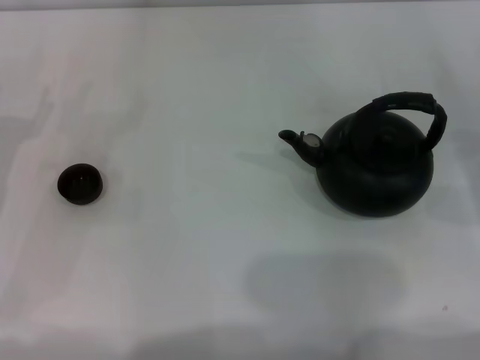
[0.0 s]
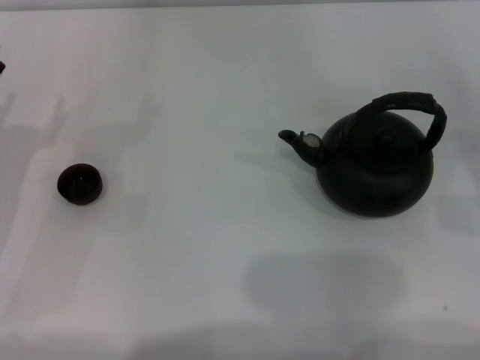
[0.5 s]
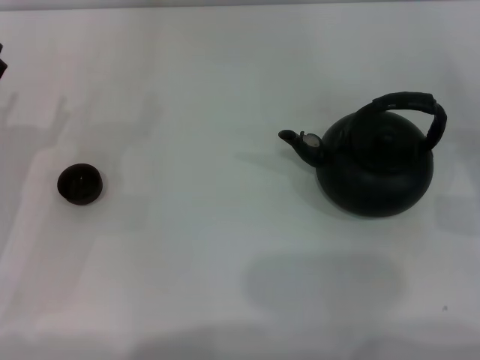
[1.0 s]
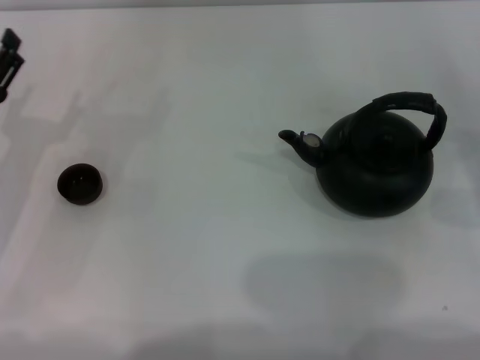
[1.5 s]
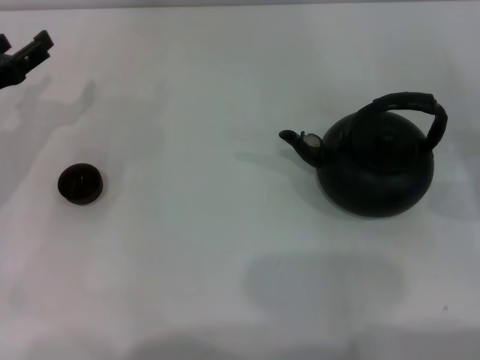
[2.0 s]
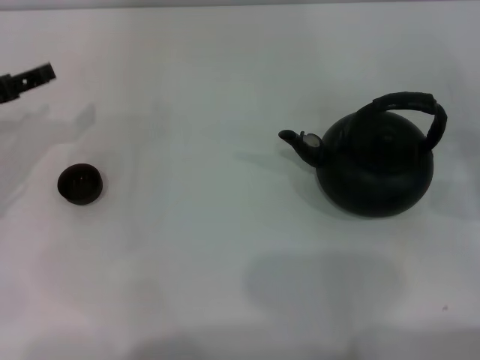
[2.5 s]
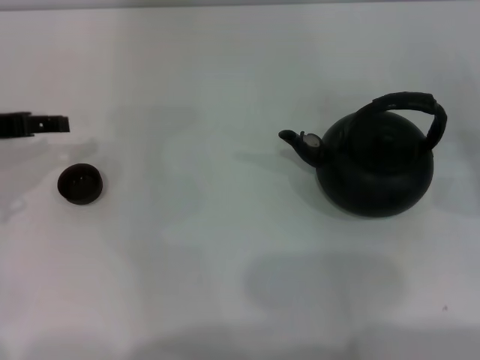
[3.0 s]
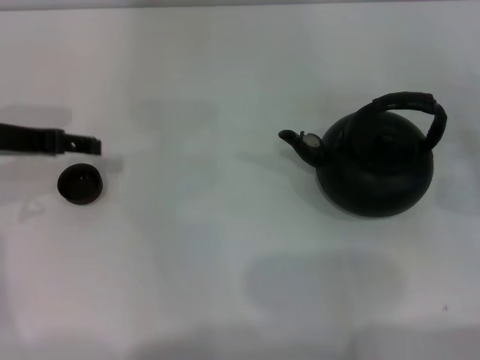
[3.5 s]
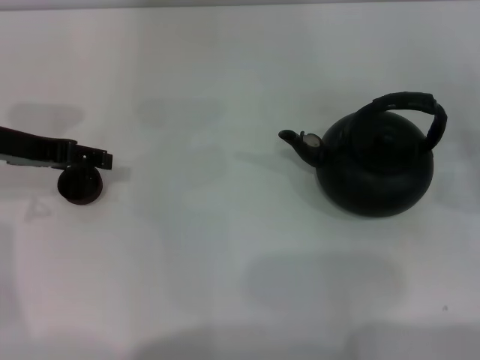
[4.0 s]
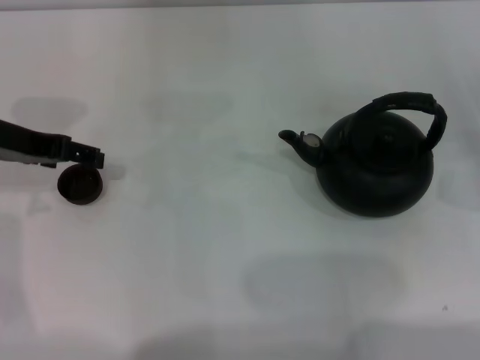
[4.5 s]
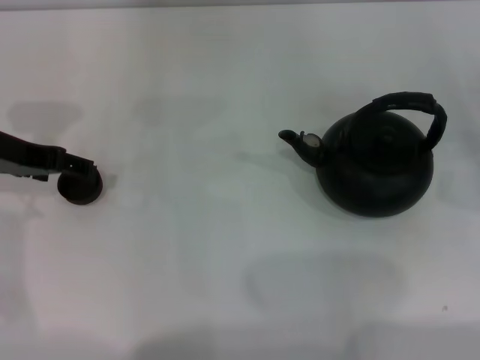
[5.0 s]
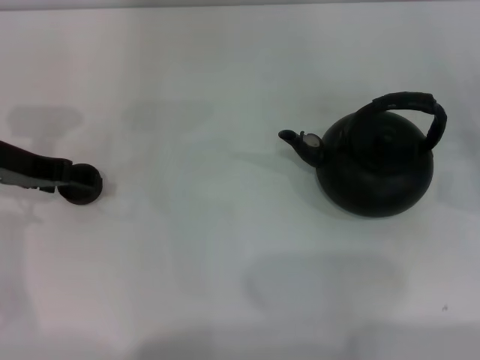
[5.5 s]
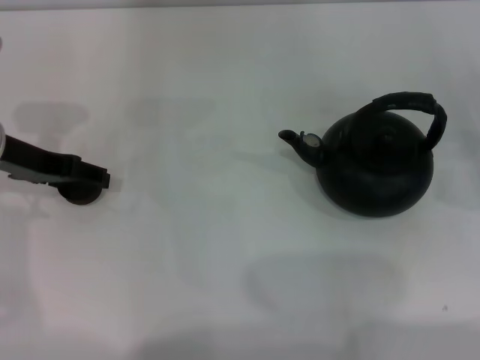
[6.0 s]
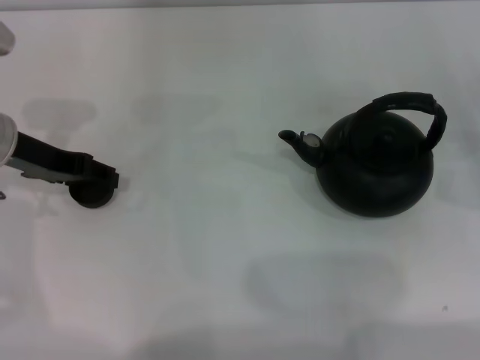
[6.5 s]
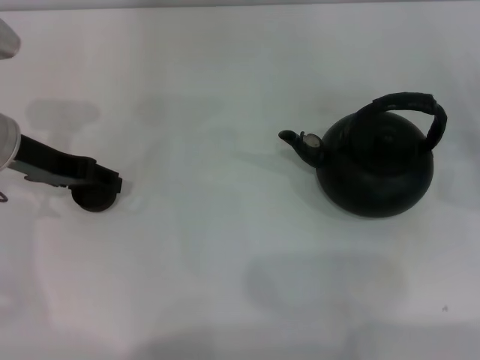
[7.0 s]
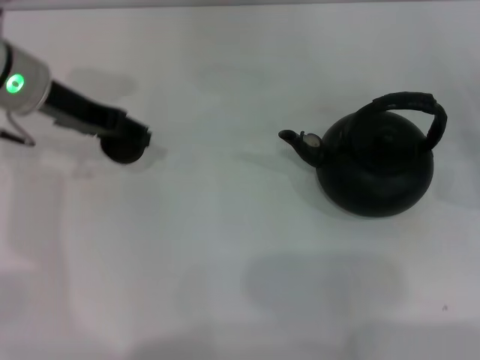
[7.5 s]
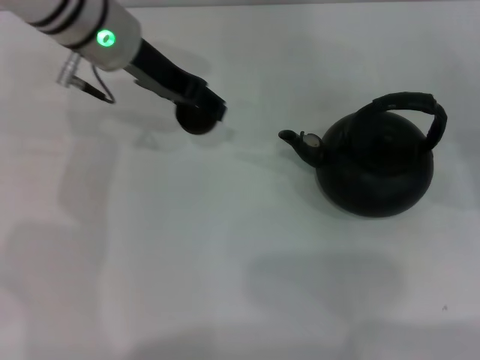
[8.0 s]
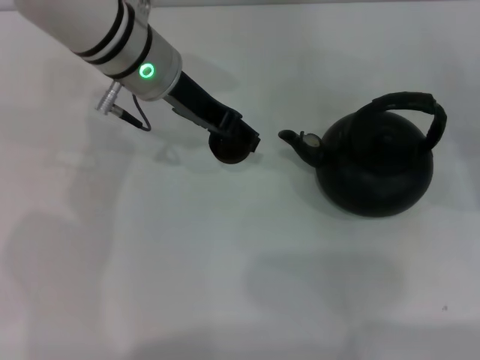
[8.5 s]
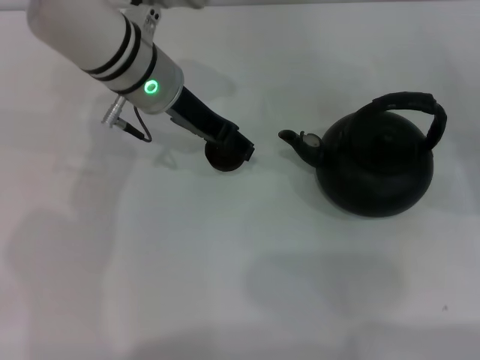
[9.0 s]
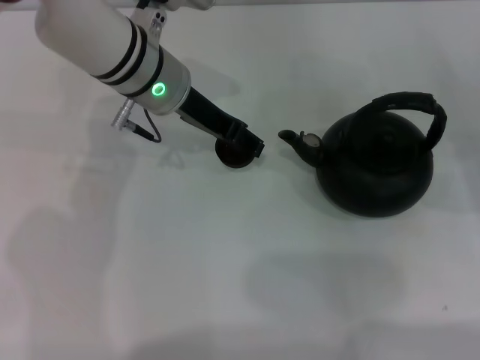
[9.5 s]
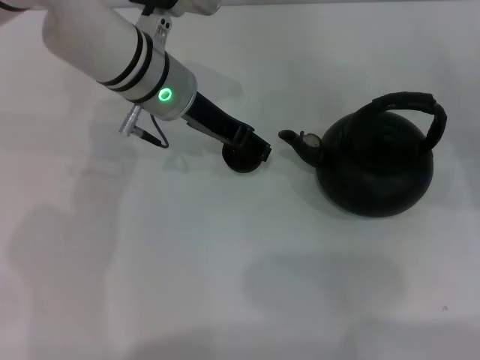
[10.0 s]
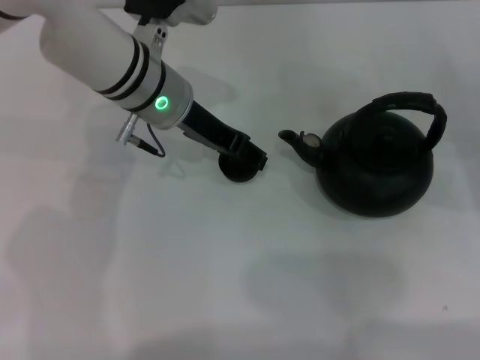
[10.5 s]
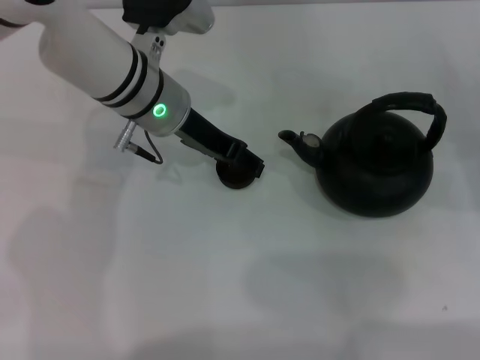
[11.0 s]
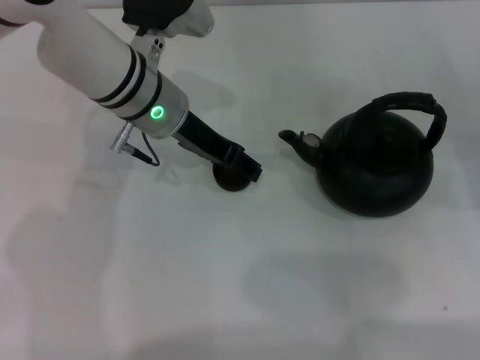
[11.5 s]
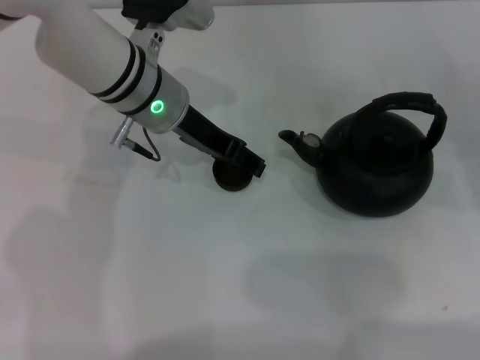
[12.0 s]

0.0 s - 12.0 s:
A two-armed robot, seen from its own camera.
Task of the whole recording: Grasp the handle of the teapot with one hand and pour tea into the teacup.
Step, 0.0 s - 7.5 s: Pick up the teacup with the left gripper.
0.0 s - 2.0 s: The left gripper shifts by about 5 cm.
2.0 s - 4.0 s: The left gripper moves upward, about 5 cm.
4.0 s - 6.0 s: There are only small adjustments of the grippers.
6.0 s - 8.0 s: The left gripper shifts some 15 cm to the right, forward and upward, and closes.
8.0 s - 10.0 s: The left gripper travels downward by some 5 cm.
10.0 s - 12.0 s: The left gripper opens.

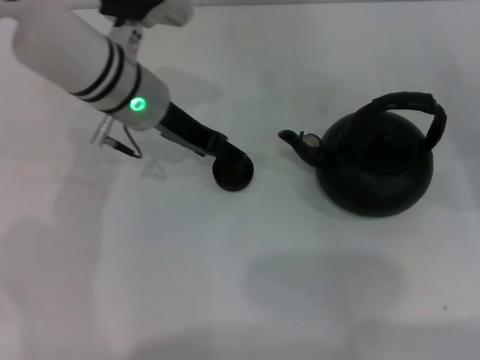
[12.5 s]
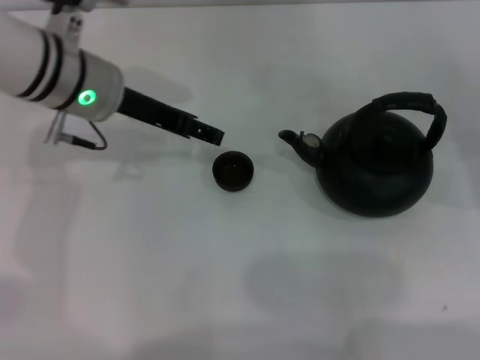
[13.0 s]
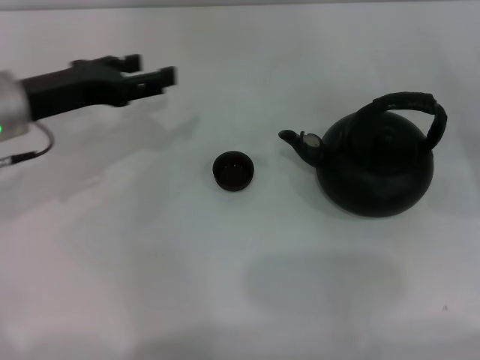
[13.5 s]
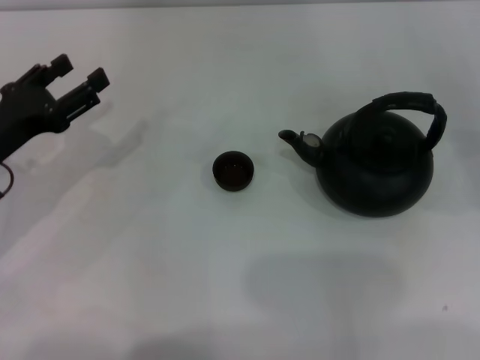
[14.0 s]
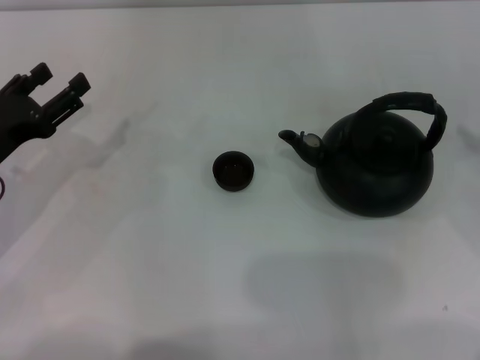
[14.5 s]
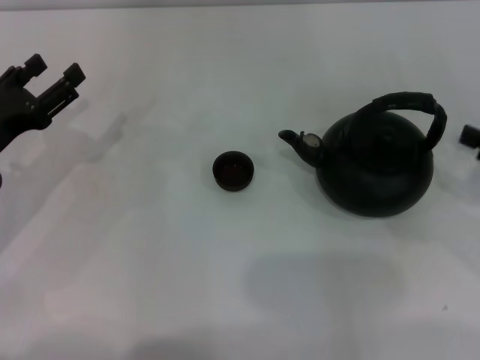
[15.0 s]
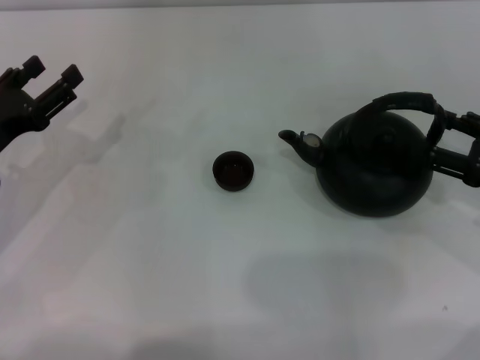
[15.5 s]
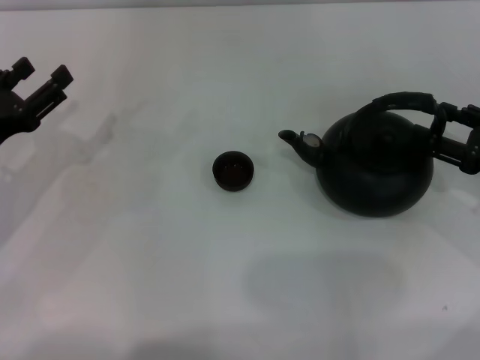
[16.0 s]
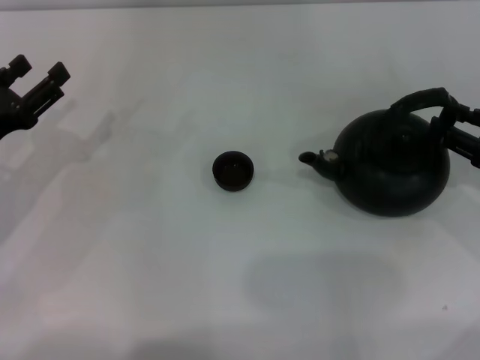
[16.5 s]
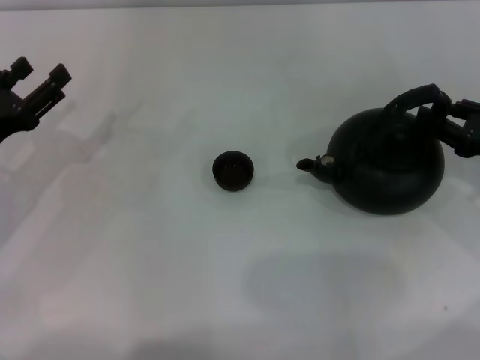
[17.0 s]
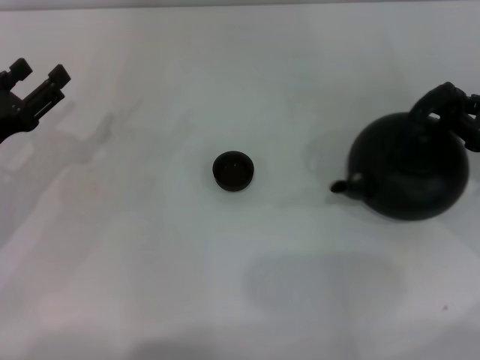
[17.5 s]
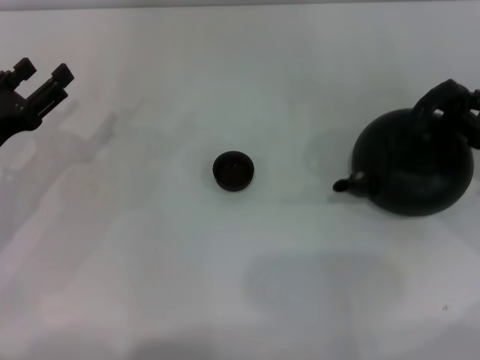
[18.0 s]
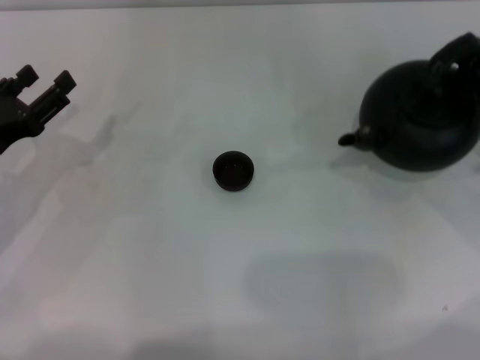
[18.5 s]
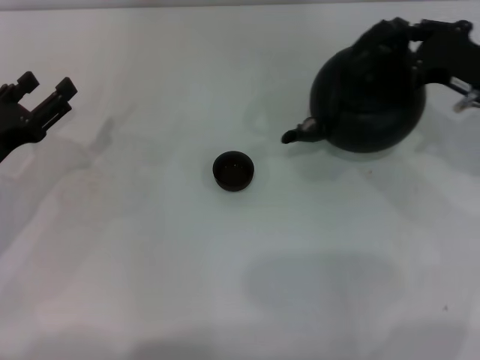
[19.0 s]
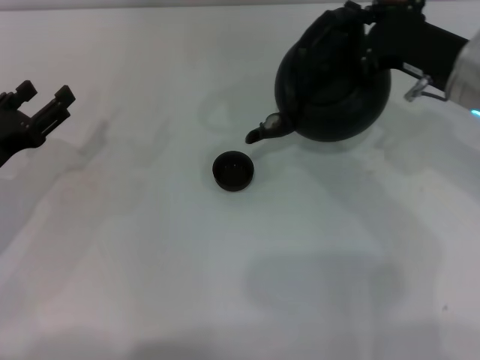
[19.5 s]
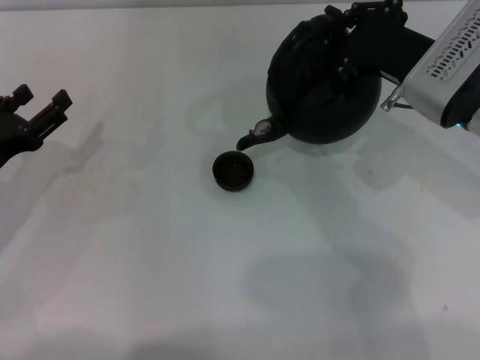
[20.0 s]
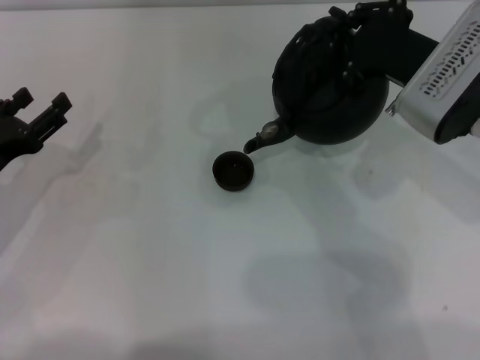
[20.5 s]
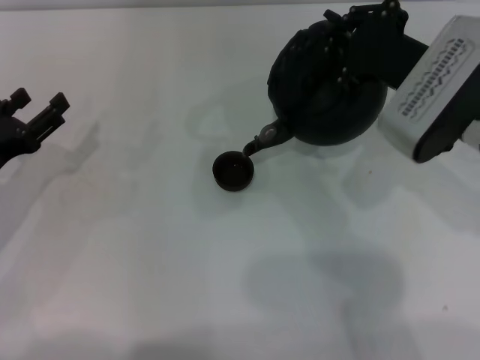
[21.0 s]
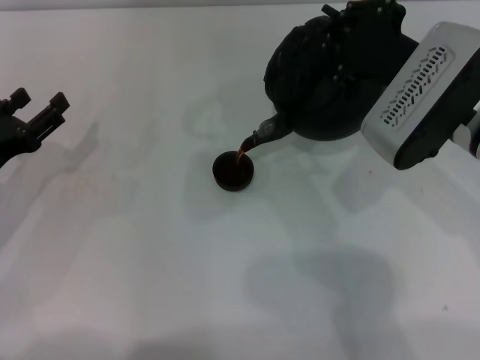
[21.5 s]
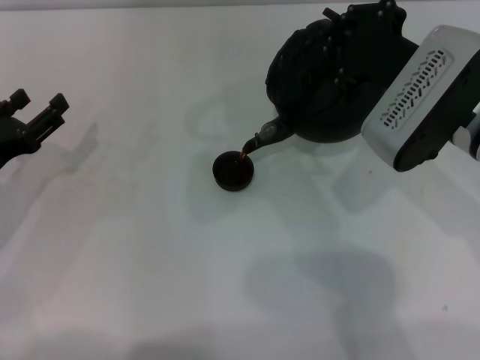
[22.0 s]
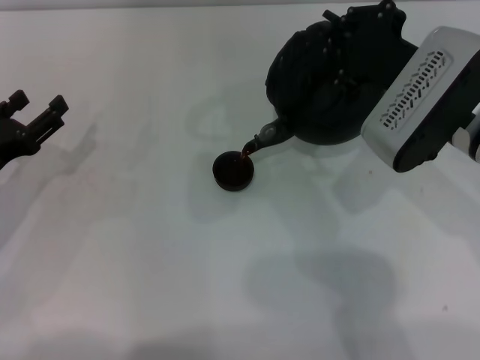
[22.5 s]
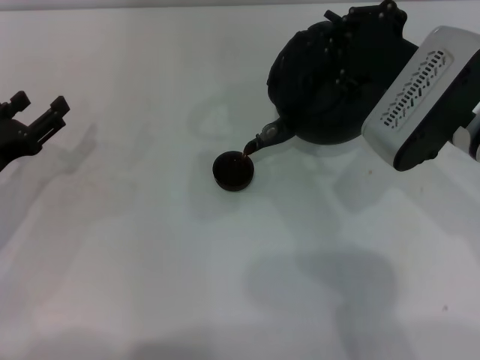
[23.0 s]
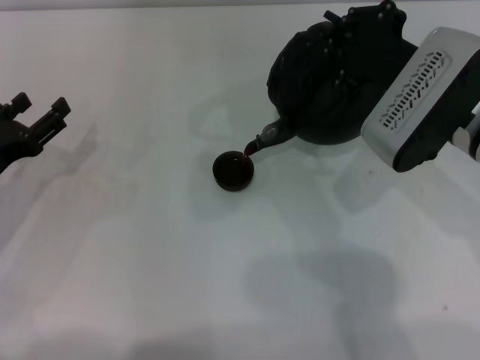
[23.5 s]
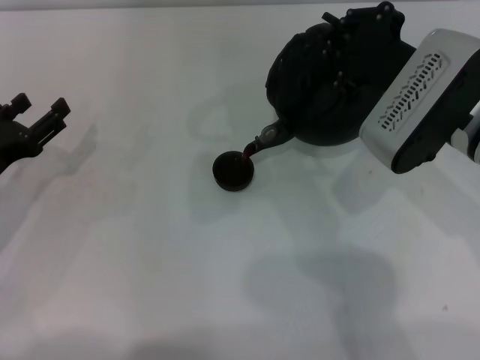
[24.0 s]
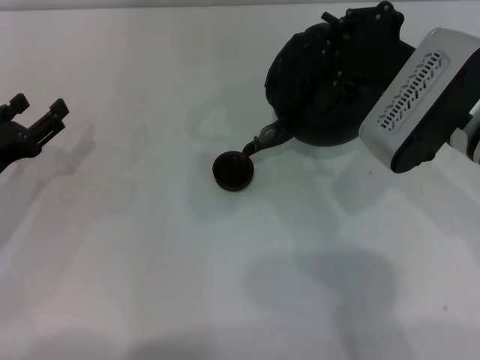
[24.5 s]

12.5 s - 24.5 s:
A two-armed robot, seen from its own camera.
Task of the whole recording: Grasp the handle of the teapot with one hand and pour tea into the teacup.
Step, 13.0 s - 18.5 s: Pick up the teapot with the right gripper.
12.5 s - 14.5 s: The right gripper is displaced upward by roughly 10 cm. Meanwhile the left gripper heads to the left and backward, covering about 20 cm.
14.5 s - 16.5 s: The right gripper heads downward, covering approximately 5 cm.
16.5 s - 18.5 s: The right gripper closes.
18.5 s - 20.5 s: The right gripper moves to the left, about 15 cm.
20.5 s - 22.5 s: The grippers move only a little.
22.5 s - 24.5 s: Neither gripper changes place.

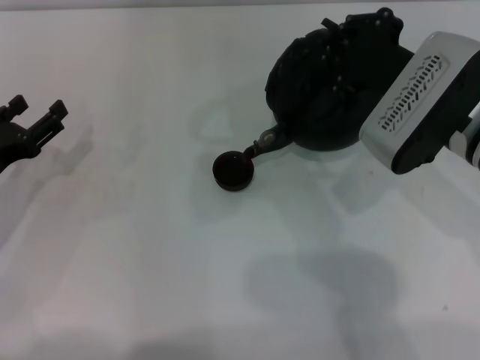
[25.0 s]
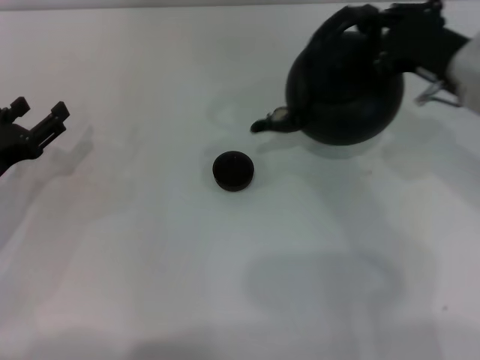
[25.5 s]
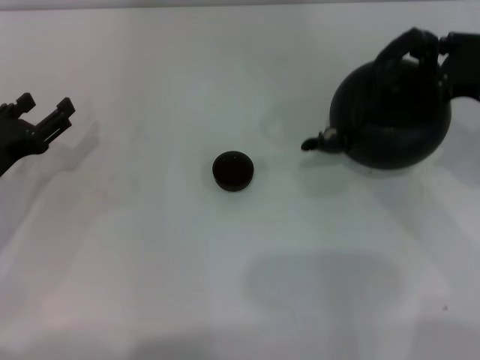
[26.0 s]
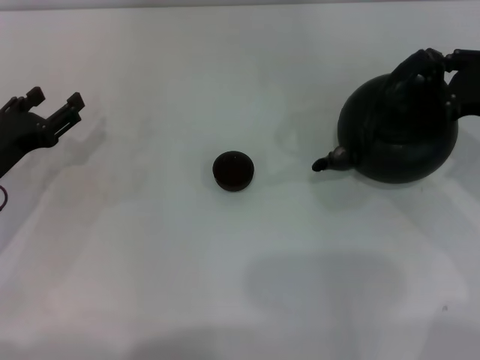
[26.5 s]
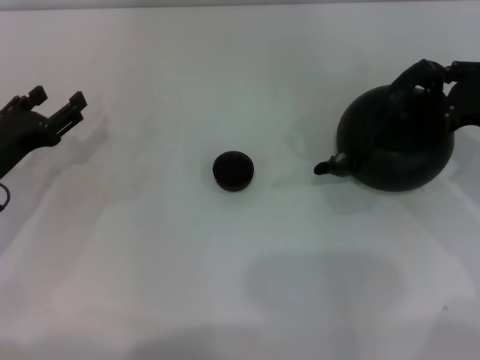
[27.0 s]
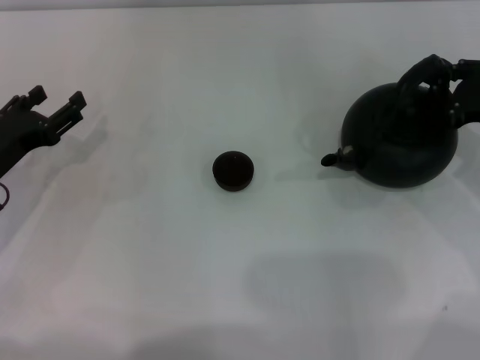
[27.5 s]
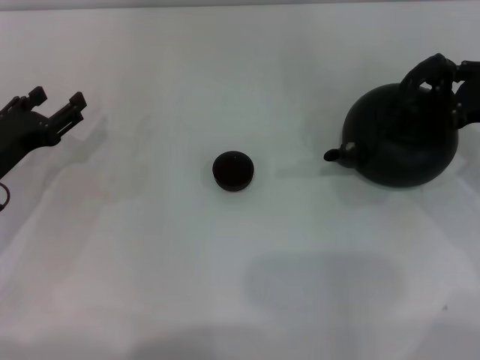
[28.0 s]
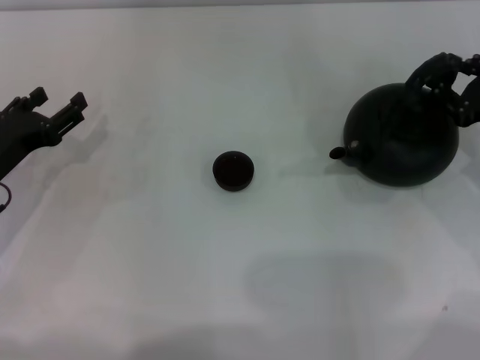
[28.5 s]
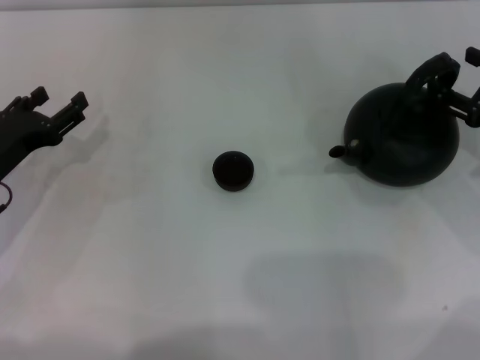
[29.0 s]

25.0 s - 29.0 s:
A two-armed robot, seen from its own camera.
Task of the whole recording: Grasp the handle of the teapot with one hand and pour tea into the teacup.
25.0 s - 27.0 s: The right gripper travels to the right by approximately 15 cm.
27.0 s - 29.0 s: The right gripper opens up.
